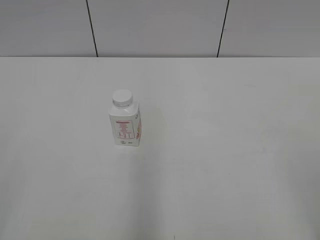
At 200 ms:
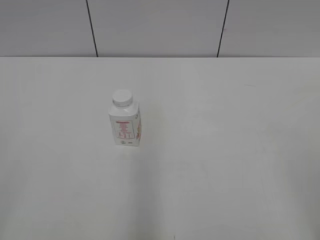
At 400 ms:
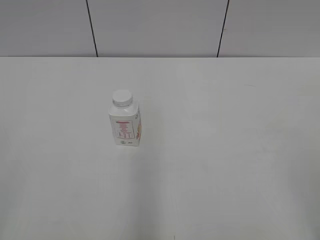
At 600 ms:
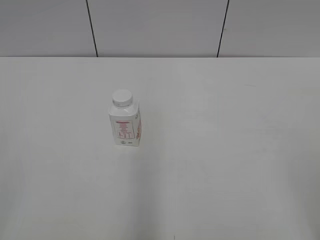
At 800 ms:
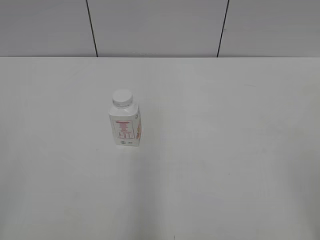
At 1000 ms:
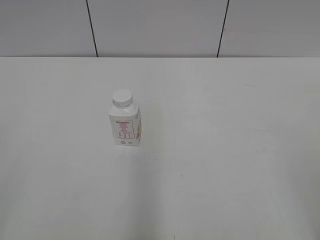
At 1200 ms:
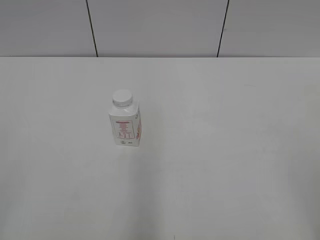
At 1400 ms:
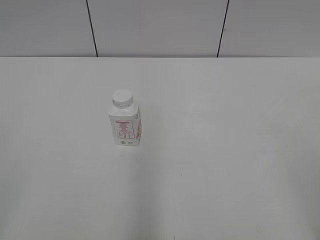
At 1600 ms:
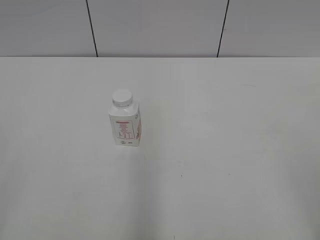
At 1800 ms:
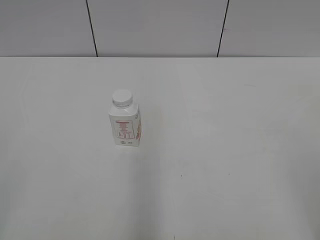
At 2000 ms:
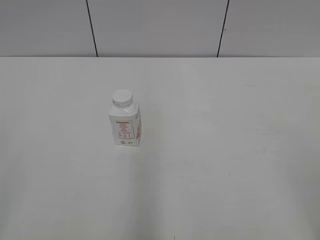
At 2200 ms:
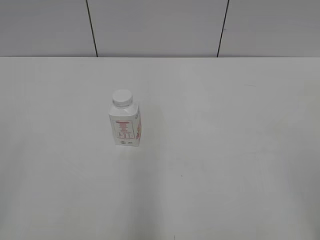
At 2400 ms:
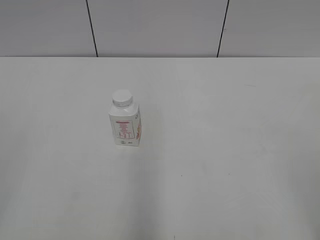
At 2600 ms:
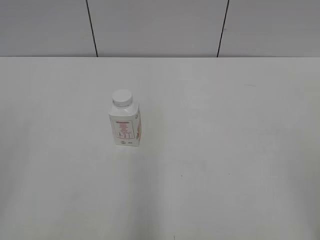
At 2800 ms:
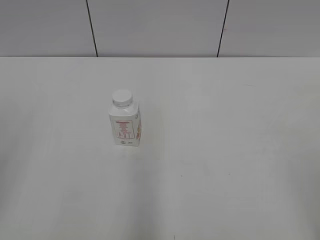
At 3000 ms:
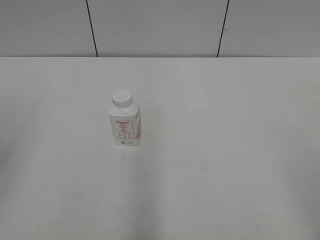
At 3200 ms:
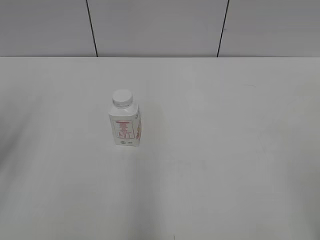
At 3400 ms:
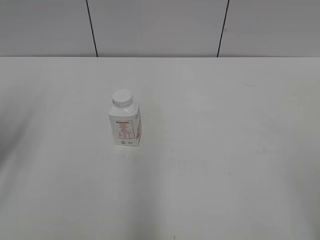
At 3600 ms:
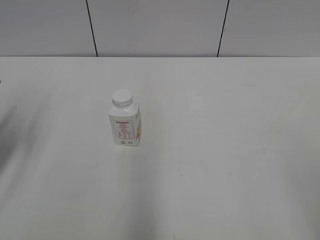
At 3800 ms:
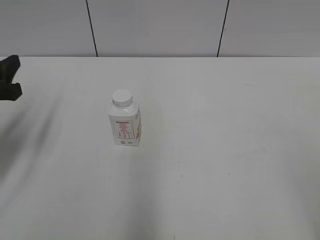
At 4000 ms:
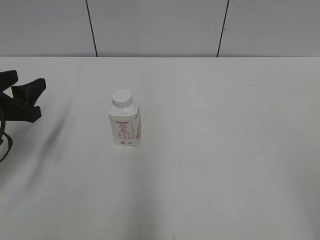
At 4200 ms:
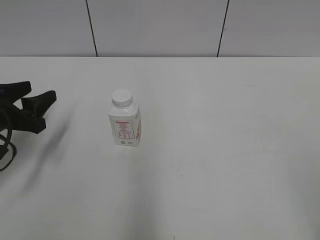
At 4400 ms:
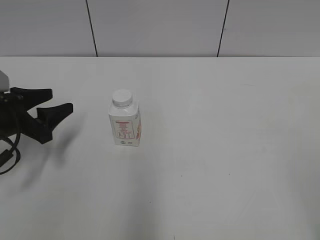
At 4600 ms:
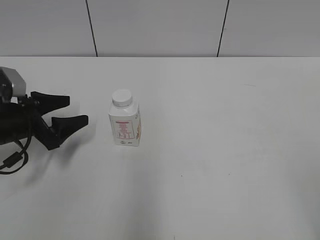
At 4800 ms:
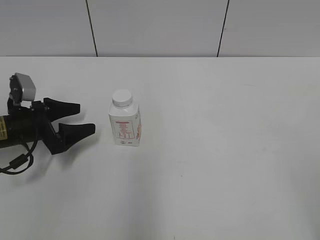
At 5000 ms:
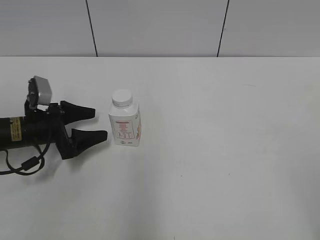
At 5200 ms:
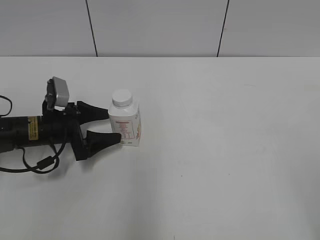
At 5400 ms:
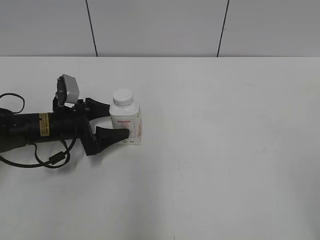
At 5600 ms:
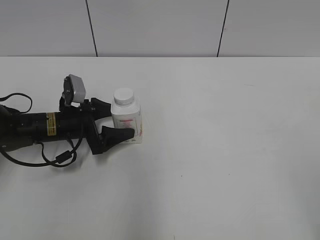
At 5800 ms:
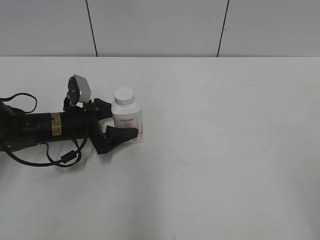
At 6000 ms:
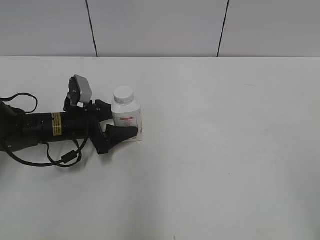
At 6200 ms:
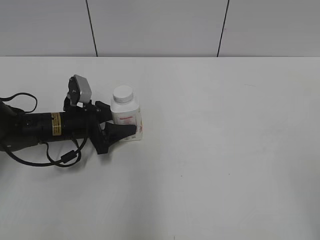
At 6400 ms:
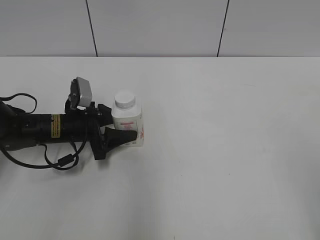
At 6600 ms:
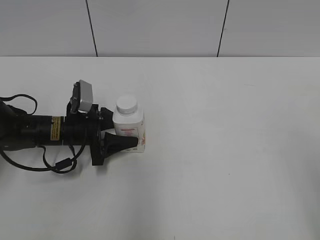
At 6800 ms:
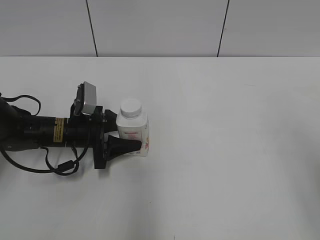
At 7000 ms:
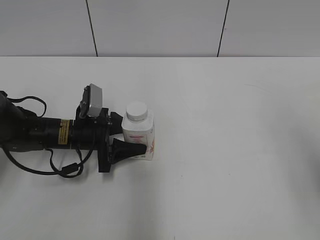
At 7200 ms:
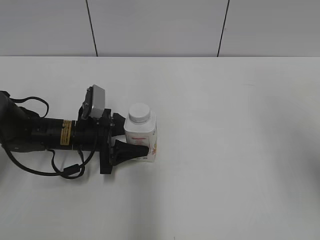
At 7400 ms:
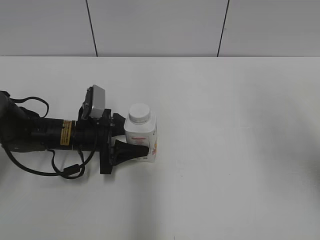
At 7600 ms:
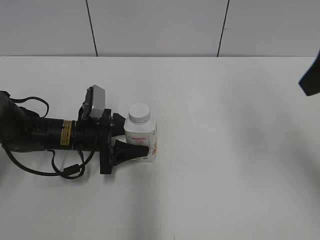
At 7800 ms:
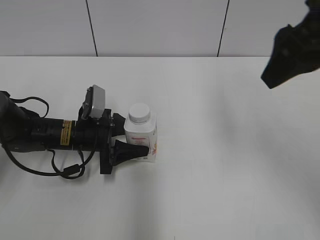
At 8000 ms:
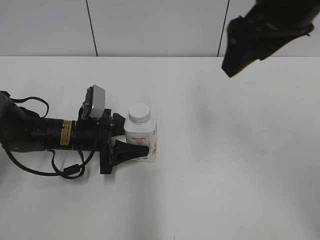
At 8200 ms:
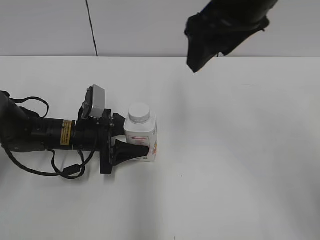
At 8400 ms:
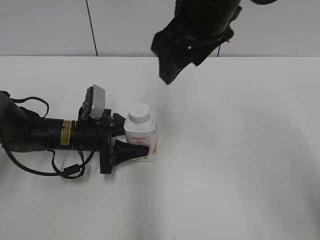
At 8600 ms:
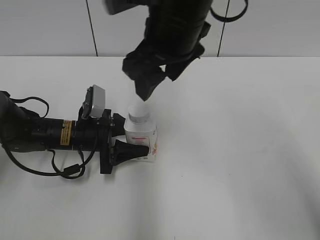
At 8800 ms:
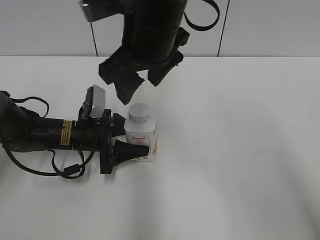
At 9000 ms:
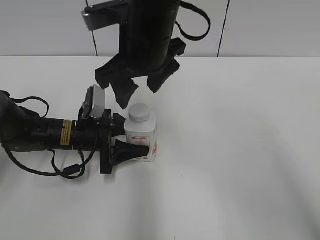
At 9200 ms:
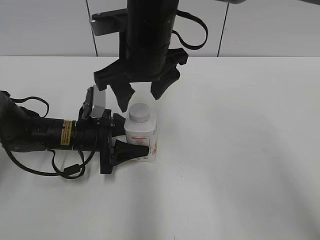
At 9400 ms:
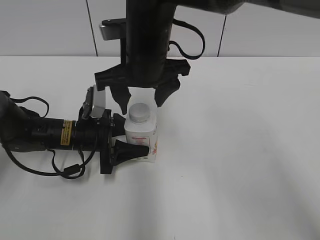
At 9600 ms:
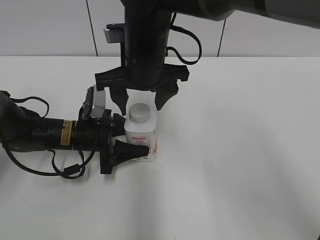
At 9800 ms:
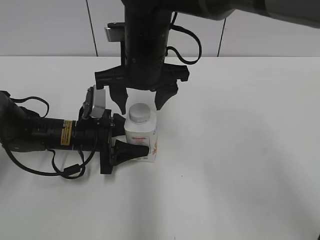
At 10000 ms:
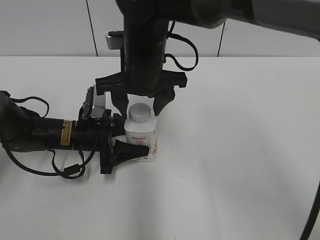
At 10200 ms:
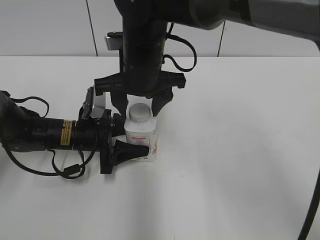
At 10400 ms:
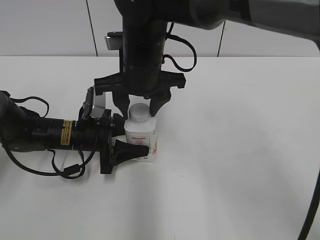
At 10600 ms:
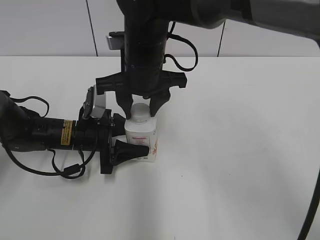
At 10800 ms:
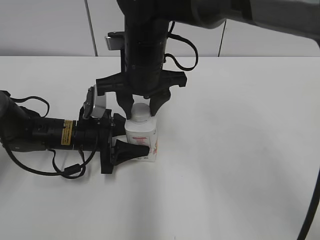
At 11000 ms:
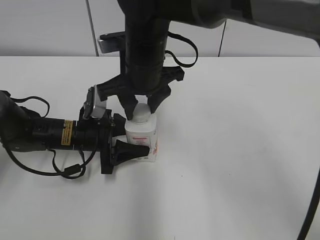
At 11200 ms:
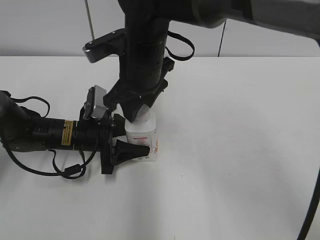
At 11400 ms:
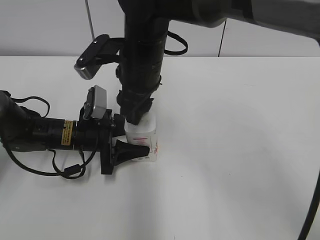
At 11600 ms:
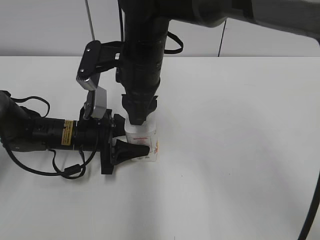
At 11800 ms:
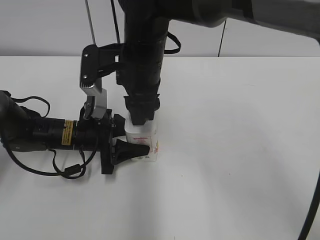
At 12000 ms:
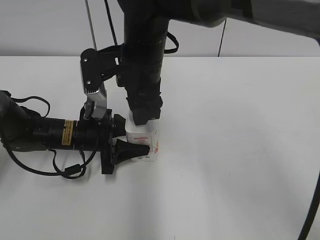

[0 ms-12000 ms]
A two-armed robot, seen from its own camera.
Step, 0 ms to 7200 ms: Grasp the bottle and move it to the center of the table with the left gripper.
3000 ms to 4400 ms: The left gripper heads downward and forward, covering about 25 cm.
4400 ms to 6000 ms: The left gripper heads to the right, downward and forward, covering approximately 10 cm, and opens and closes again.
6000 ms to 7600 ms: The right gripper is displaced forward by approximately 25 cm.
7600 ms to 9000 ms: The right gripper travels to the left by some 25 cm.
9000 ms to 10400 ms: The right gripper shifts by some 5 cm, and closes its fingers.

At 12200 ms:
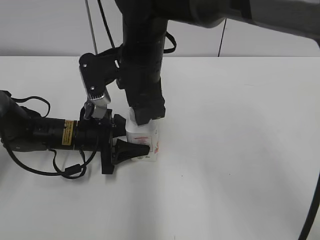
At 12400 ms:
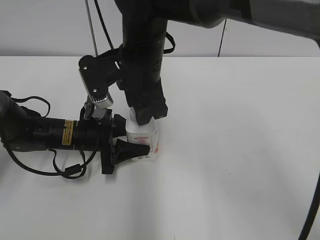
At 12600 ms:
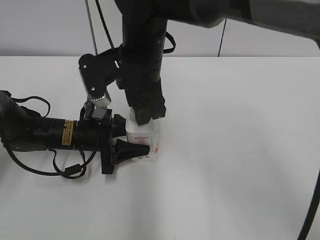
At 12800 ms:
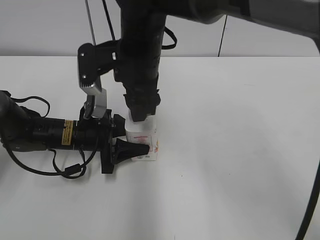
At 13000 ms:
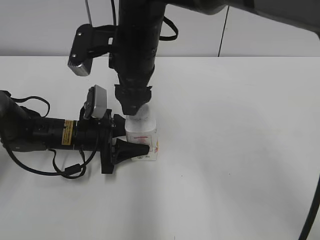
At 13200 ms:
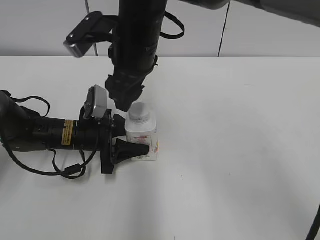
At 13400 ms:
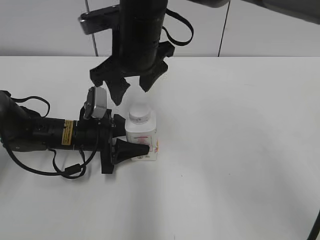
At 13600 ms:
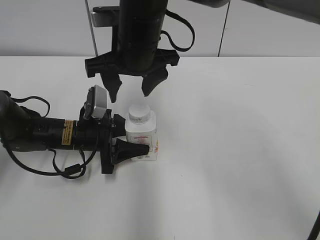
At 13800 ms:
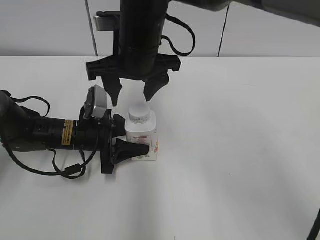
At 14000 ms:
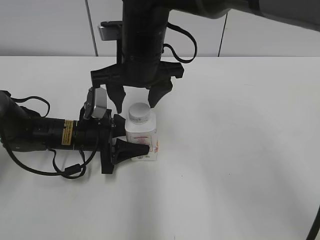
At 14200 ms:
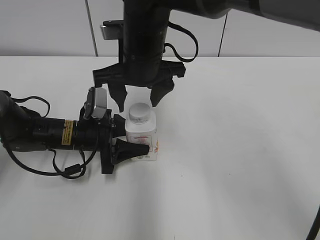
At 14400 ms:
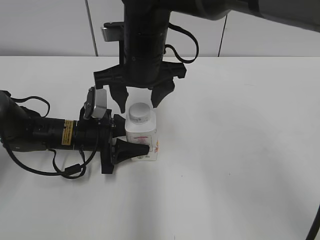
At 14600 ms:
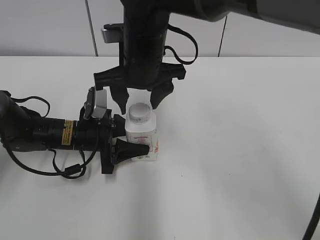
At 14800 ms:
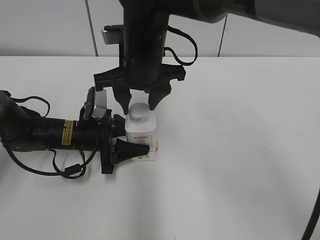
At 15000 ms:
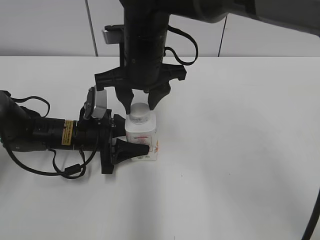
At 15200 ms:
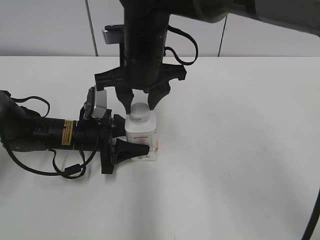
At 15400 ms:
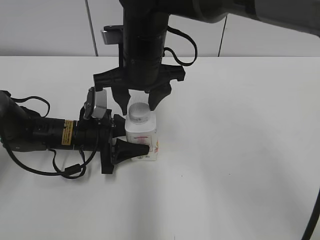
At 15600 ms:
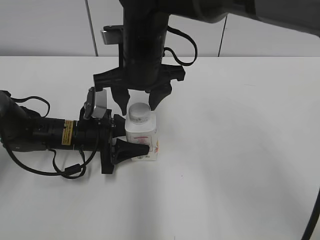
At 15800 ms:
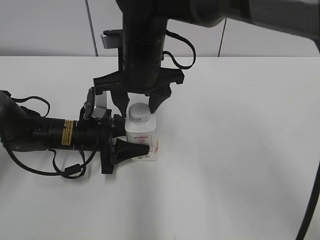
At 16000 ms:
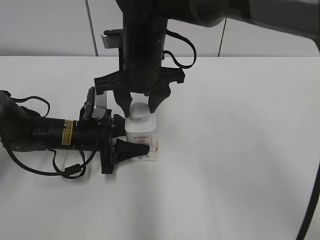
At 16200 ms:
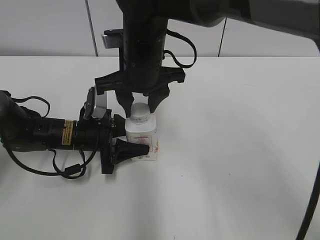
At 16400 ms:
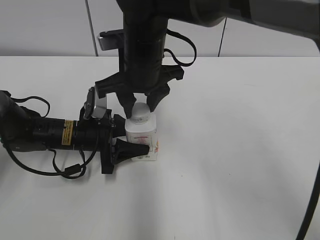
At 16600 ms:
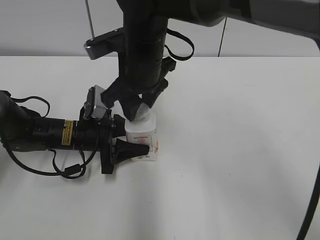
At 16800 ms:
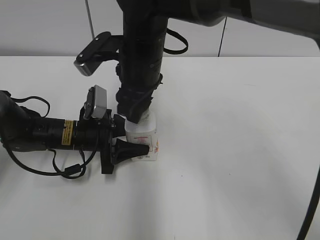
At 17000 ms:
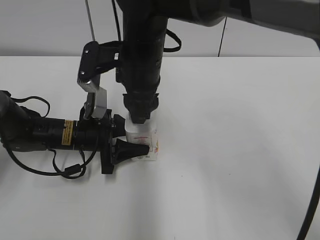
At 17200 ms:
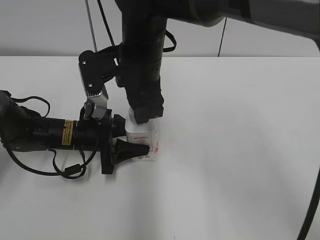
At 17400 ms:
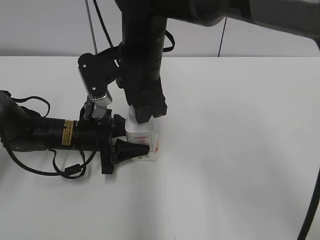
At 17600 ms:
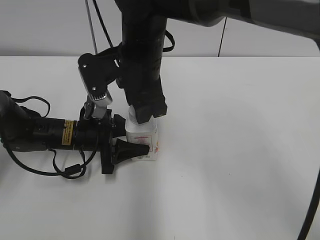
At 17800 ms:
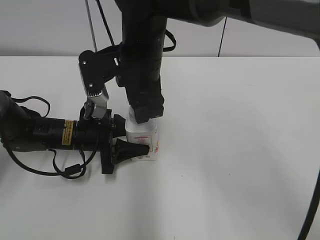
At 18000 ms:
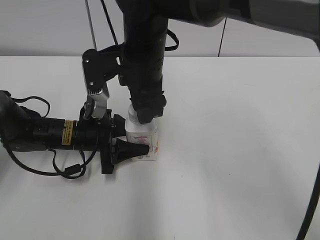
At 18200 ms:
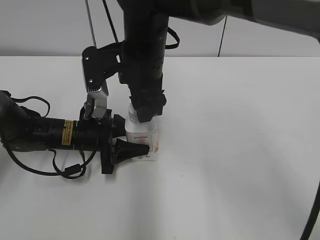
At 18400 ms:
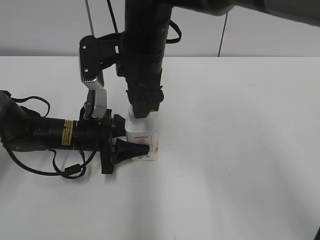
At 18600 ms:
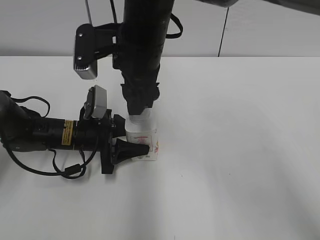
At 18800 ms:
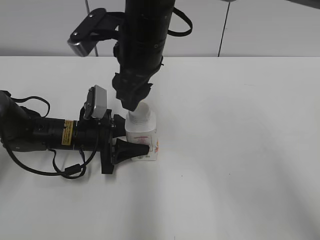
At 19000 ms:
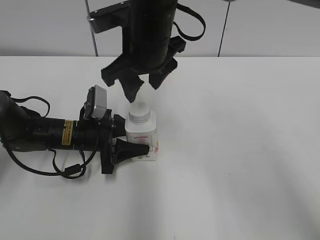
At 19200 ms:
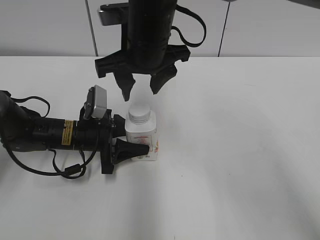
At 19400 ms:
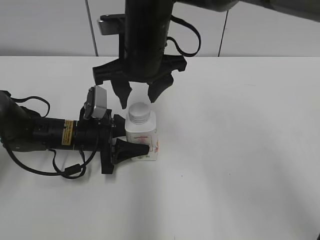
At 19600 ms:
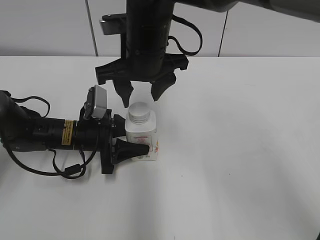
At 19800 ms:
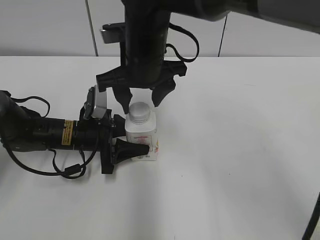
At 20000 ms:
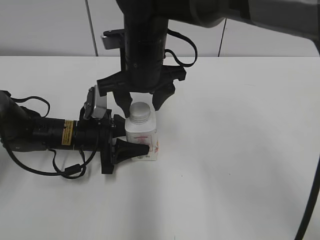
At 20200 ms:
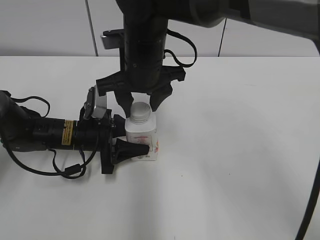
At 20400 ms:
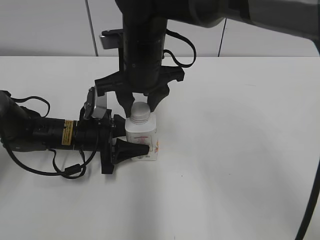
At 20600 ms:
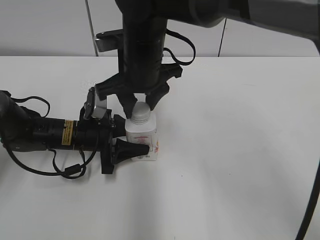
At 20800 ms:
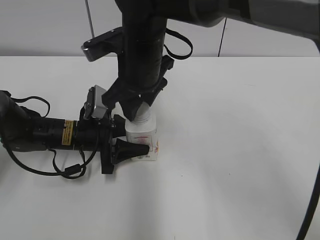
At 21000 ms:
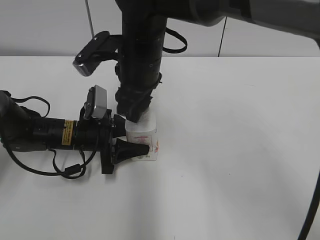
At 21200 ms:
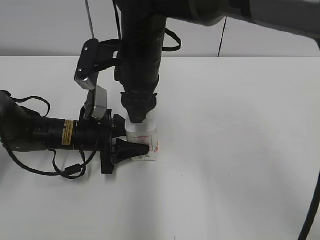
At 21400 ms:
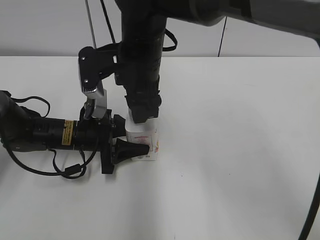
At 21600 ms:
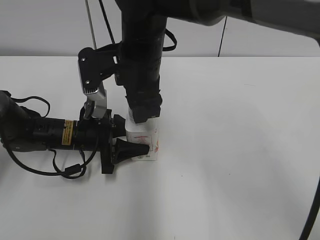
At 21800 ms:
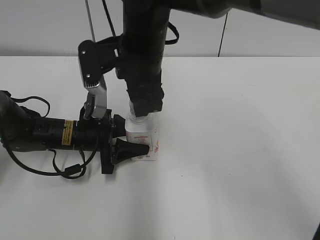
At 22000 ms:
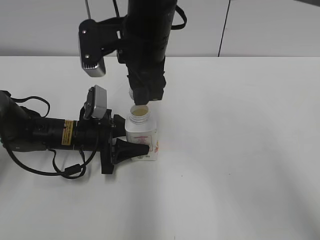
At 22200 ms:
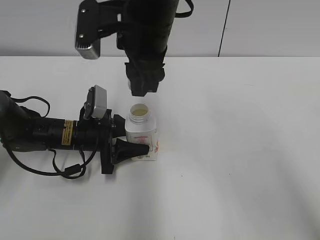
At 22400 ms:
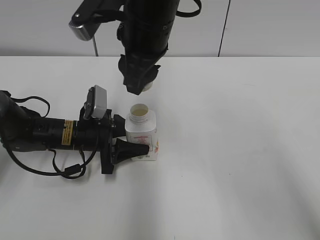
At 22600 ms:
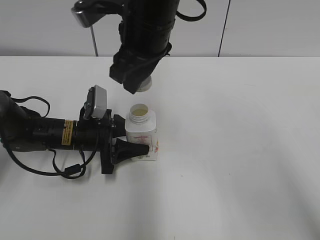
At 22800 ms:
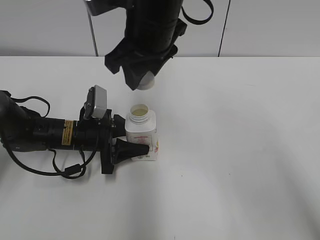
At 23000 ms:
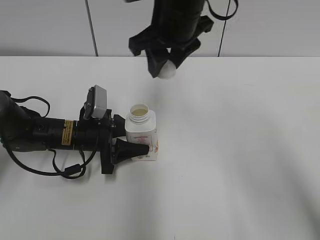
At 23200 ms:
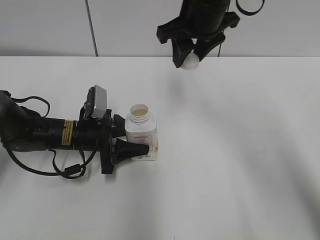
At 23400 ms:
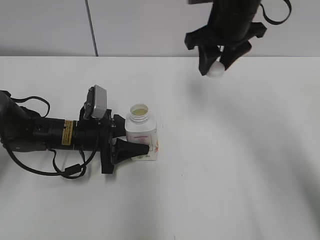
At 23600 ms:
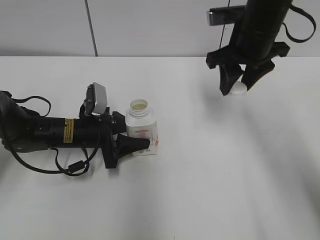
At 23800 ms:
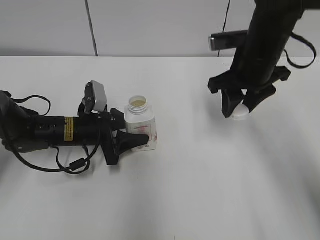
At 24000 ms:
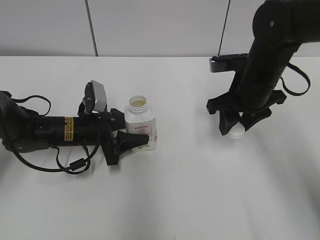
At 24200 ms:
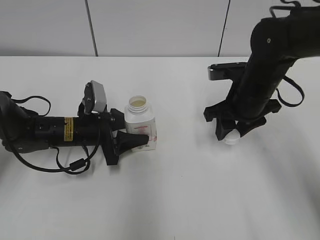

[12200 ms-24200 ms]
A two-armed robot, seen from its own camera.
Step, 12200 ms to 21800 ms: Unscrew the bottle cap with the right gripper while holding the bottle with the left gripper.
12200 ms to 13800 ms: The right gripper opens.
13800 ms to 15200 ms: The right gripper closes up.
15200 ms to 16600 ms: The right gripper opens, then closes again.
16600 ms to 18200 ms: The right gripper opens.
19800 ms to 21200 ms: The right gripper closes up.
21200 ms to 22600 ms: The right gripper heads upward, covering some 5 cm.
22600 ms to 24200 ms: The right gripper goes about 20 cm to the right and downward.
